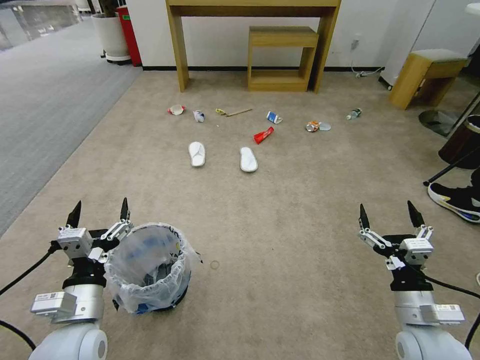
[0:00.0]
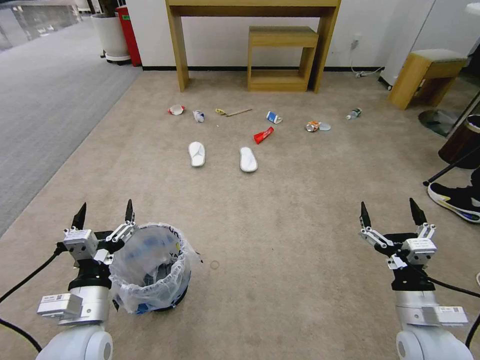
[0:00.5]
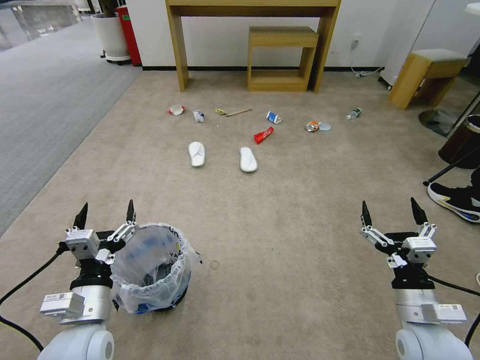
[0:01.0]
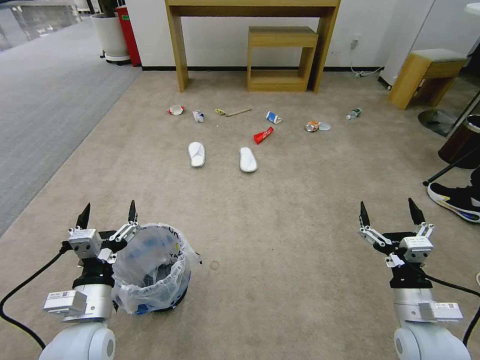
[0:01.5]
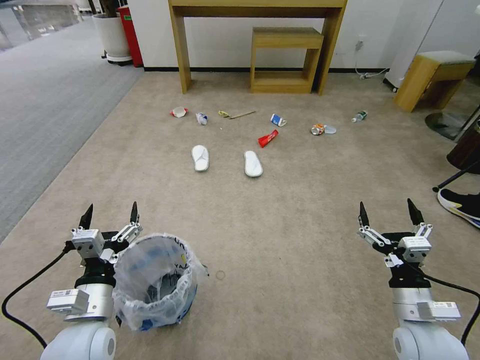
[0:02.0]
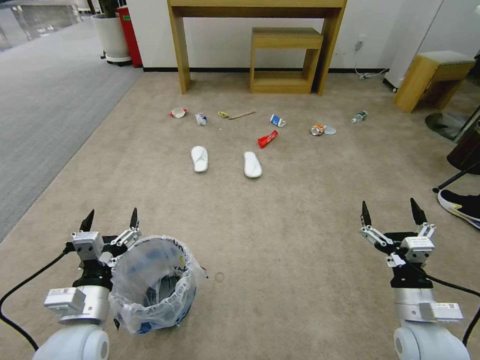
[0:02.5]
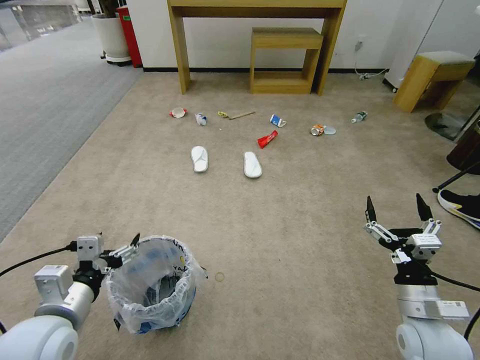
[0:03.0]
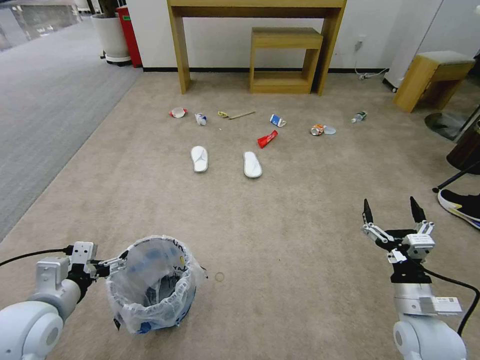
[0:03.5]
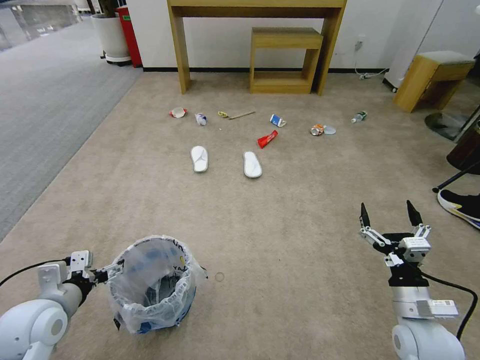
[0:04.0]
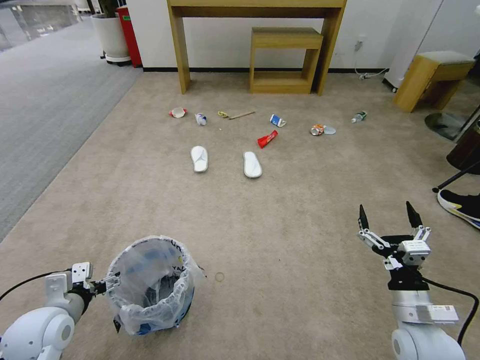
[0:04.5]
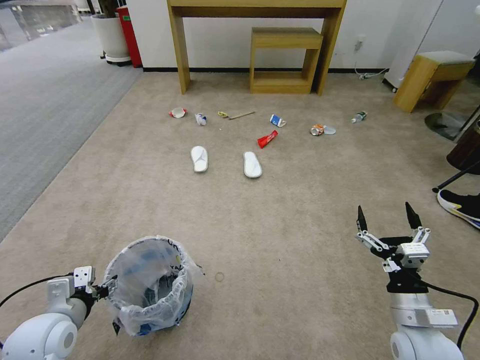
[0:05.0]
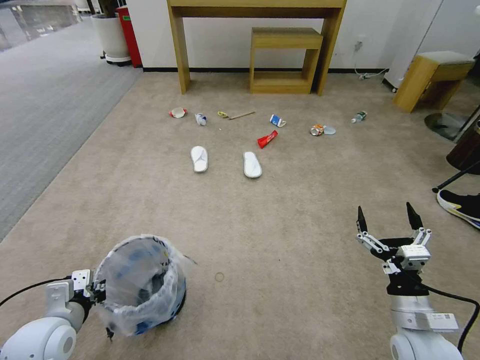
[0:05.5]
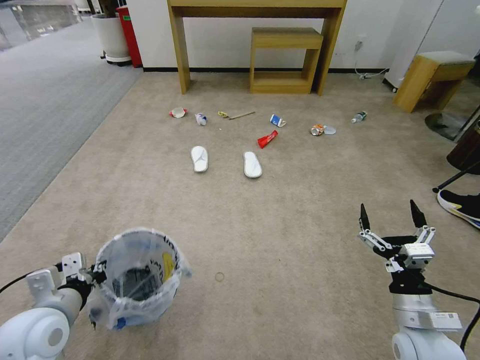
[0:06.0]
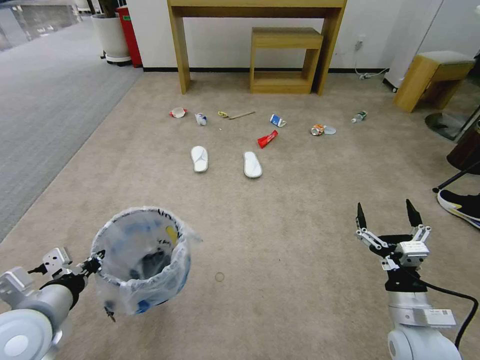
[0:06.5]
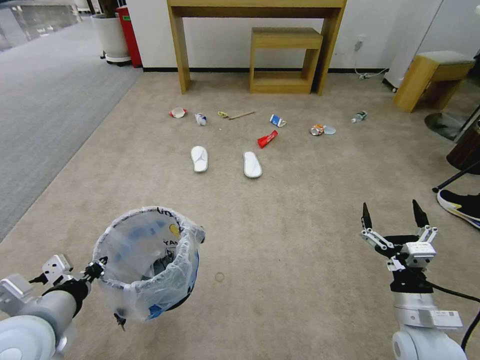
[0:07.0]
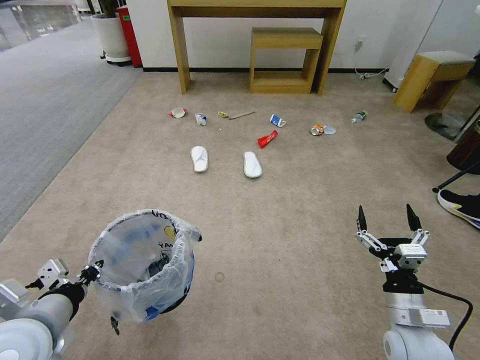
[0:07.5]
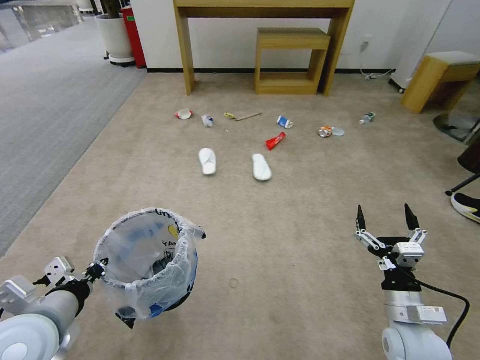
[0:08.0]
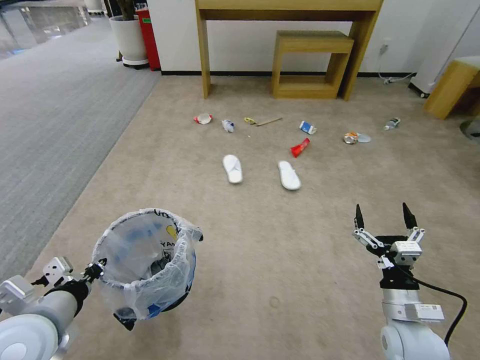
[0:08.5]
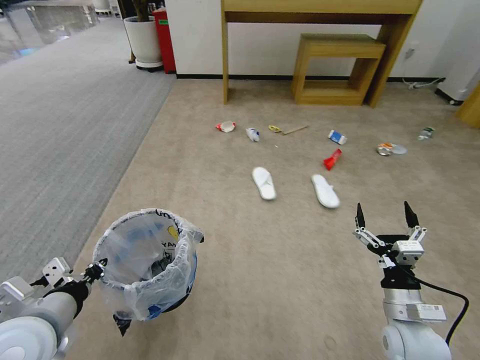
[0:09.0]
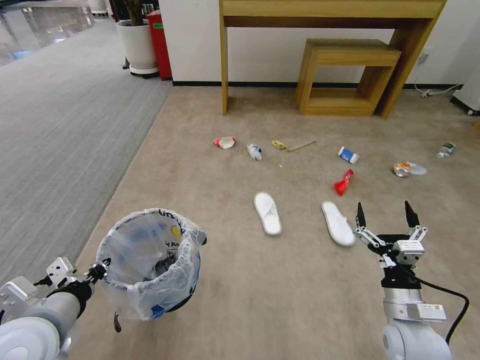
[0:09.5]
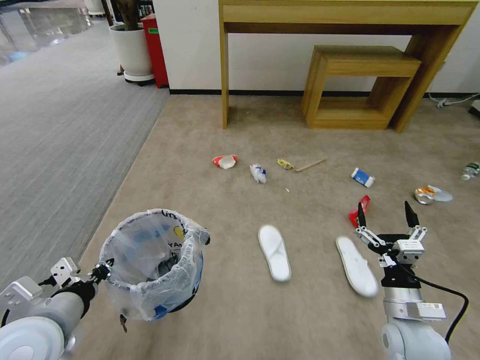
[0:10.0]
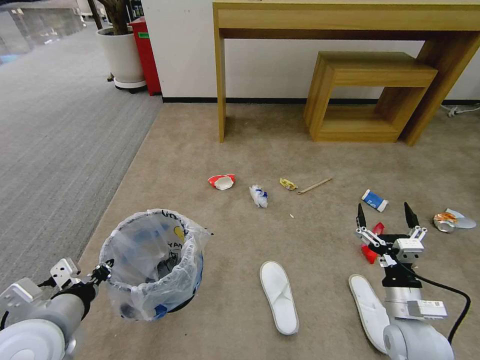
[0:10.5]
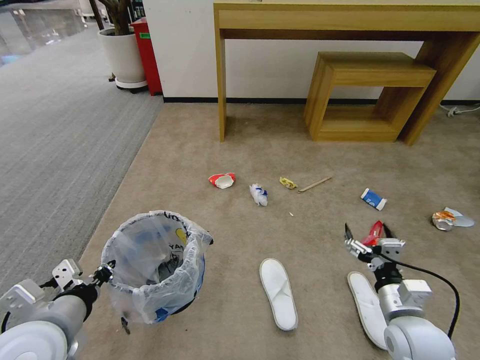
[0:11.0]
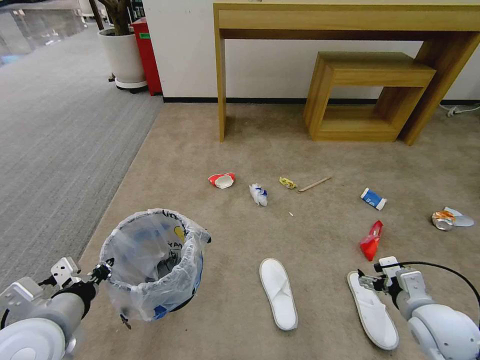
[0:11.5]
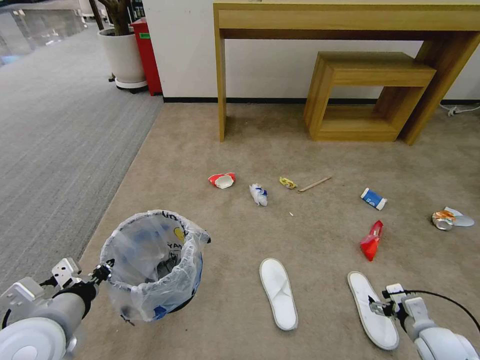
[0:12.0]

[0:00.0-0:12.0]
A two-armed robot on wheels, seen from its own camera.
Task of the whole recording: Pick up the trash bin and place the garbage on the floor into it.
0:02.0 to 0:04.0: The left gripper travels to the left by about 10 cm.
0:04.0 to 0:06.0: The left gripper closes.
0:06.0 to 0:08.0: The left gripper travels upward by roughly 5 cm.
0:10.0 to 0:12.0: The right gripper moves to the right and downward, some 15 cm.

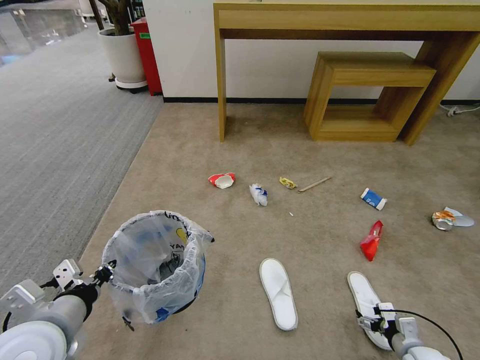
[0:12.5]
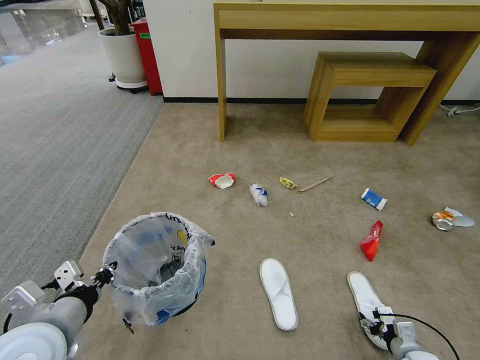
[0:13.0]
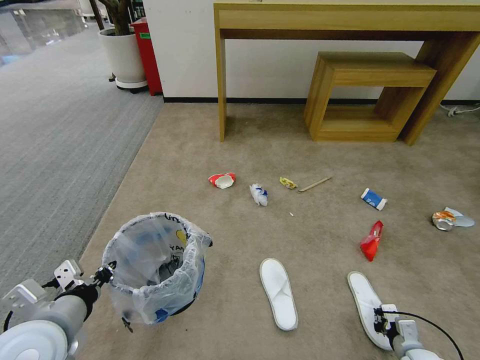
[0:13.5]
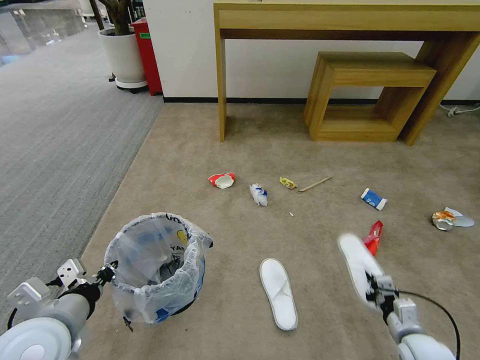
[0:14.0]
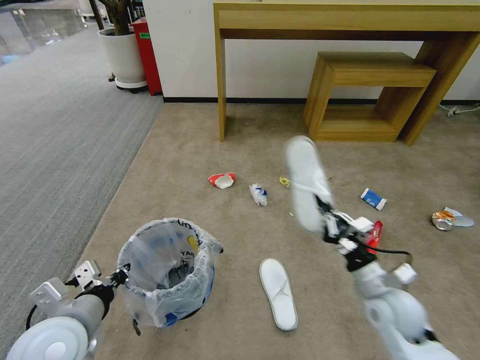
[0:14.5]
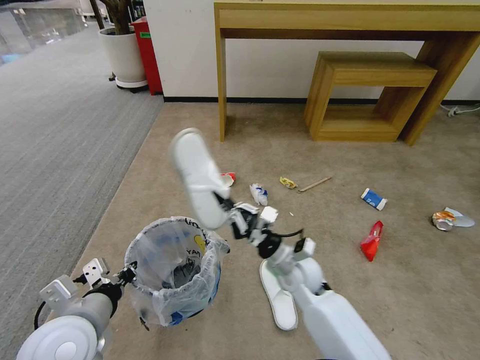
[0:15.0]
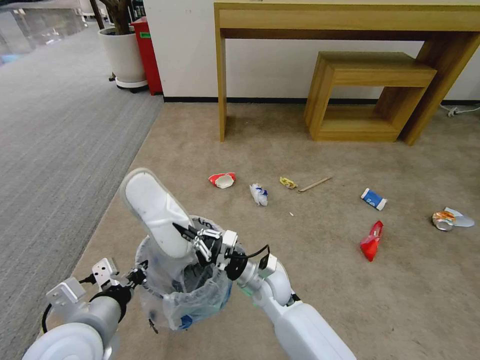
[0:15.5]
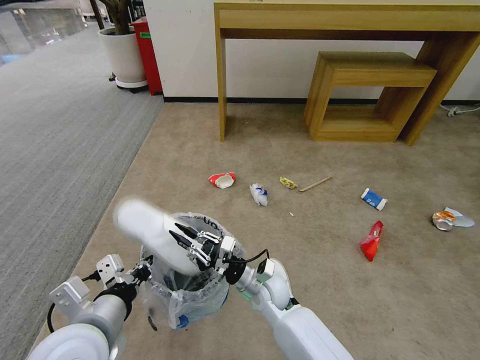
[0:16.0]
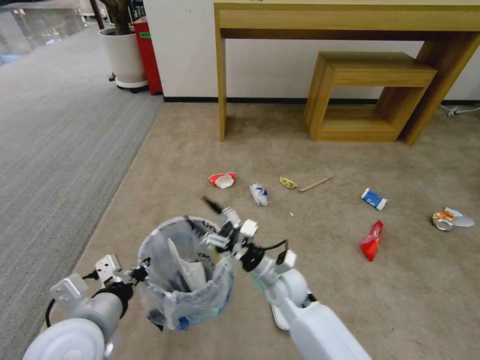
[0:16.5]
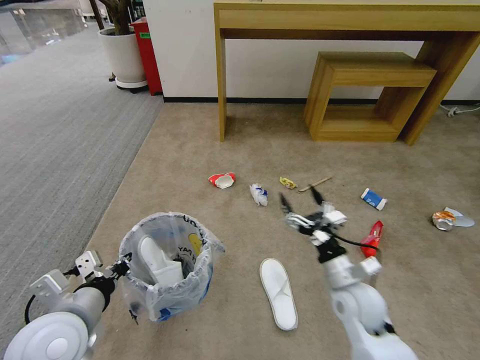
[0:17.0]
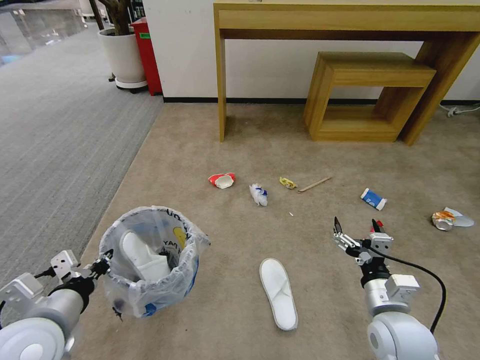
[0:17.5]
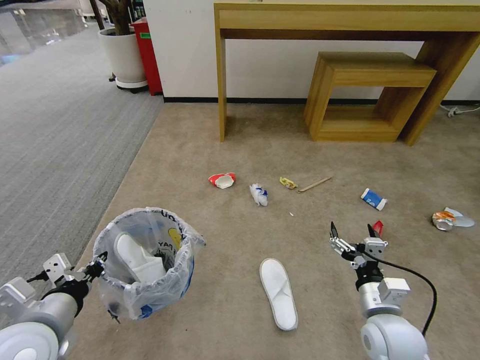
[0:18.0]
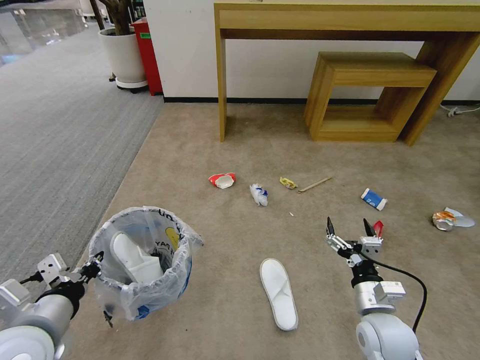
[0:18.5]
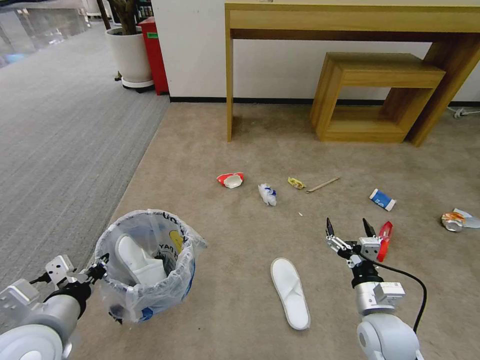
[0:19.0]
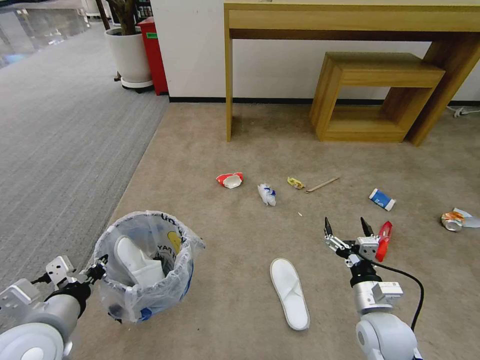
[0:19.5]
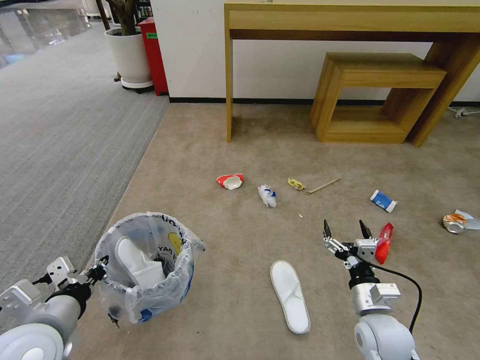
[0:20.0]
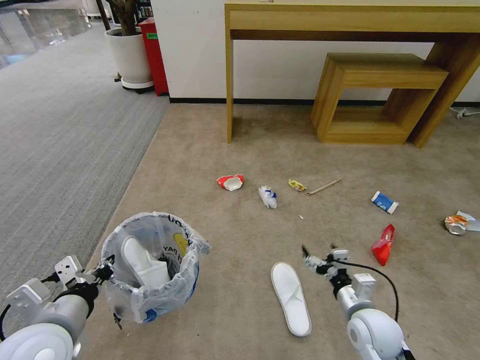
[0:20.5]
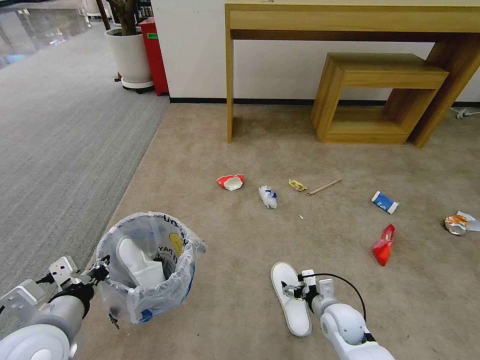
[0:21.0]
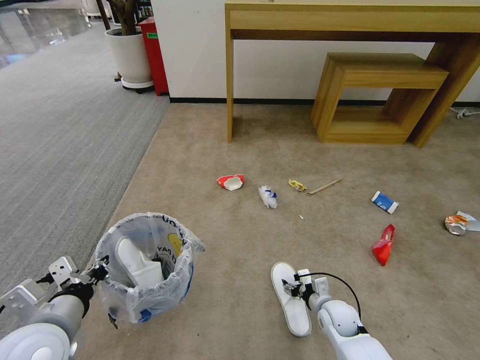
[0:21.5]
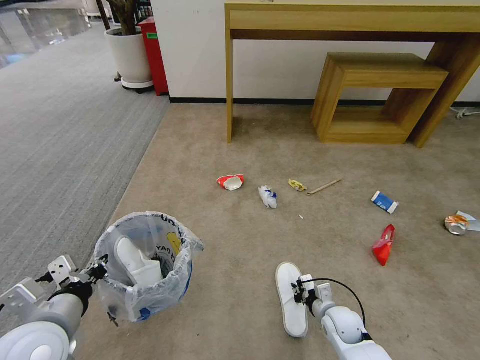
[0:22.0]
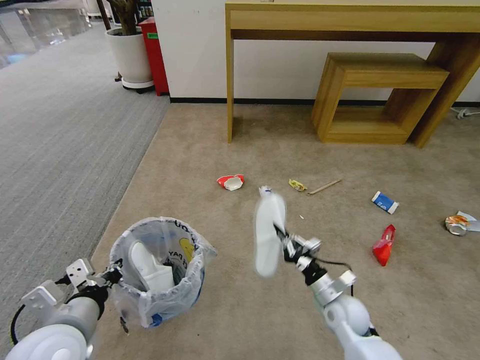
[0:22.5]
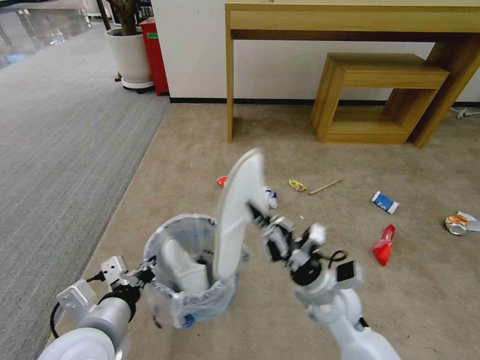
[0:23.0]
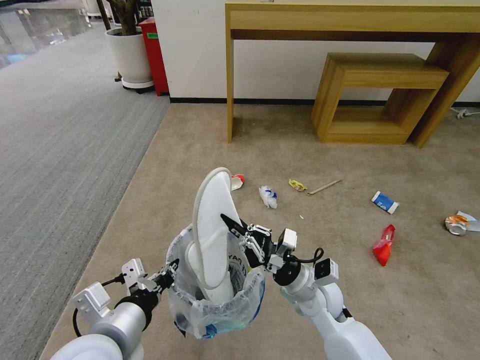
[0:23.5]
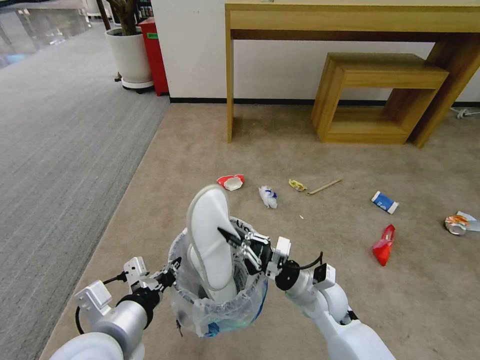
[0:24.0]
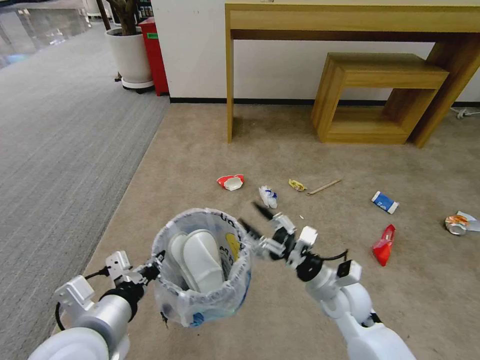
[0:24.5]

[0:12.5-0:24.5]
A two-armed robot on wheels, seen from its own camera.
Task of the whole recording: Pick up the trash bin and place the garbage on the floor into it.
0:12.5 to 0:14.5: The right gripper moves upward, to the left and forward, some 25 cm, and closes.
0:14.5 to 0:16.5: The right gripper moves to the left, roughly 20 cm, and opens its fingers.
0:16.5 to 0:18.5: The right gripper travels to the right and backward by some 20 cm; the left gripper goes roughly 5 cm to the left.
0:20.5 to 0:22.5: The right gripper moves downward and forward, some 10 cm, and closes.
0:22.5 to 0:24.5: The right gripper shifts approximately 10 cm upward, and opens up; the left gripper goes some 5 cm to the right.

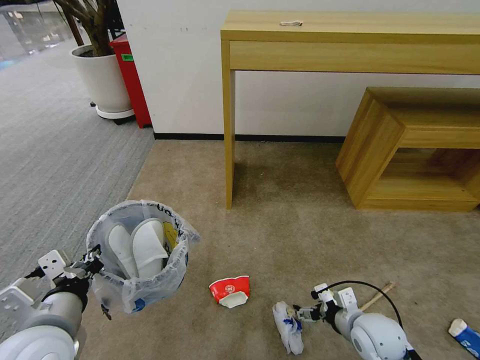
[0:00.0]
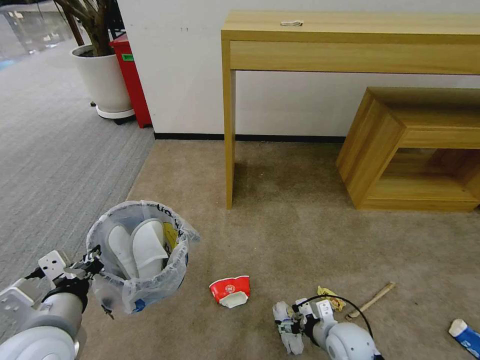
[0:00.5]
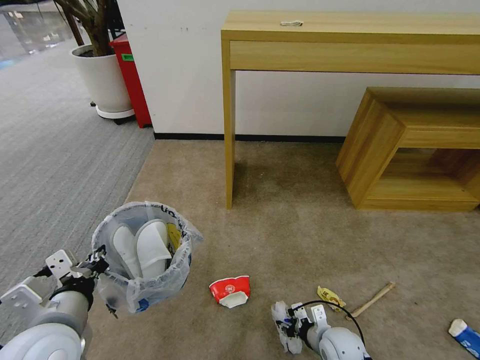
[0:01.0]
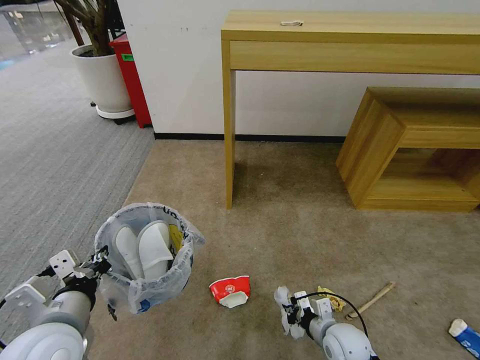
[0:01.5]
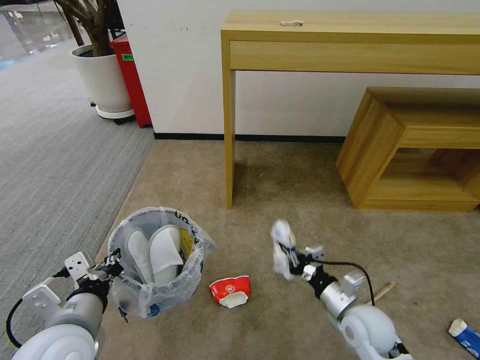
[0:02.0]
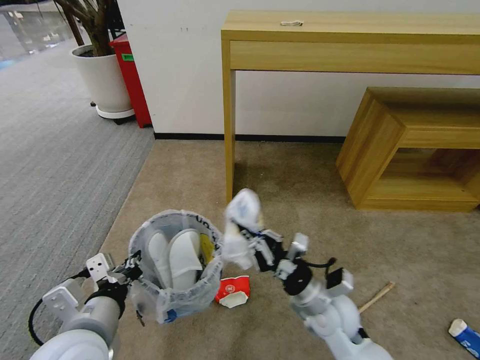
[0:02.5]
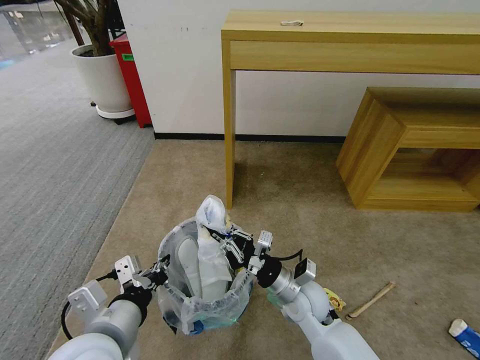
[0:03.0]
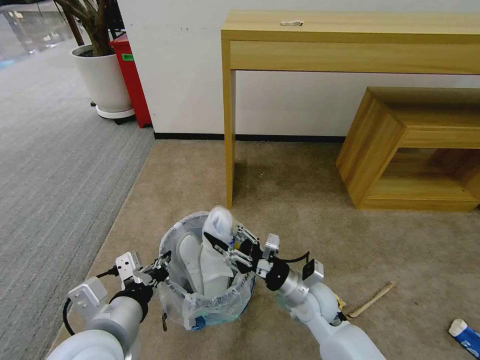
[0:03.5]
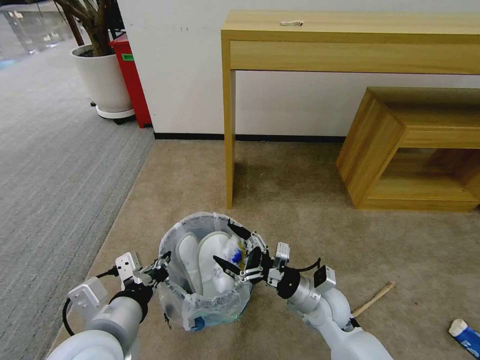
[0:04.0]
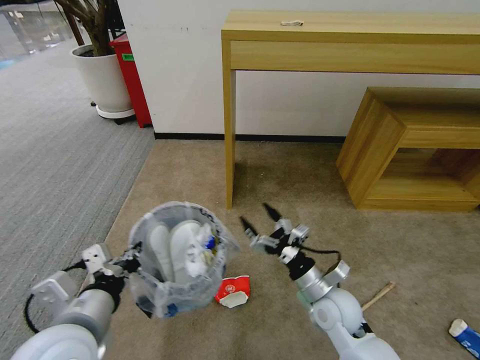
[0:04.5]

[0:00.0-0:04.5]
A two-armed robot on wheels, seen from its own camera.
Task of the whole recording: Pick up the trash bin and place the garbage on the floor into it.
0:00.0 to 0:02.0: The right gripper moves approximately 10 cm downward and comes back, and closes its fingers.
0:02.0 to 0:04.5: The right gripper moves to the left, roughly 5 cm, and opens up.
